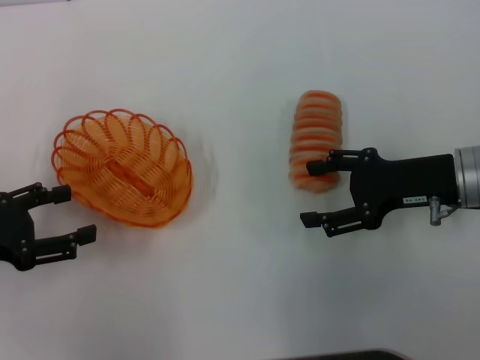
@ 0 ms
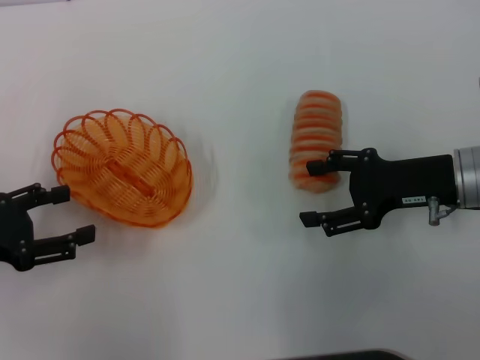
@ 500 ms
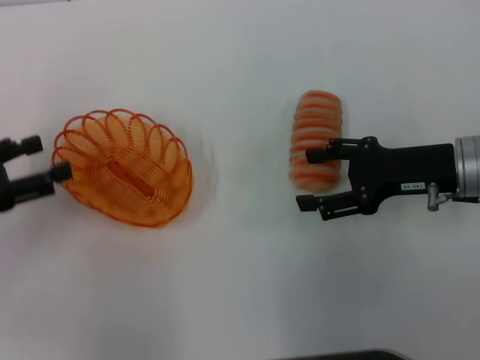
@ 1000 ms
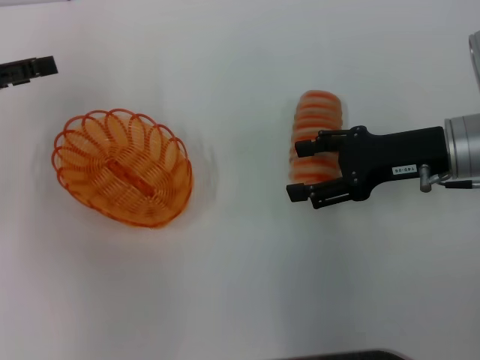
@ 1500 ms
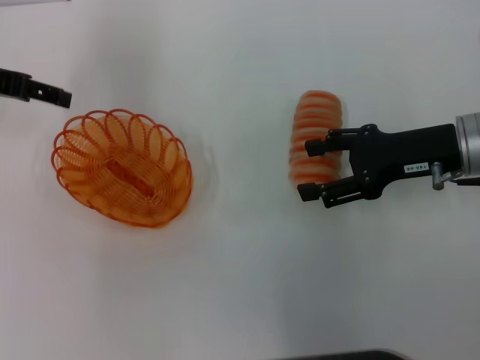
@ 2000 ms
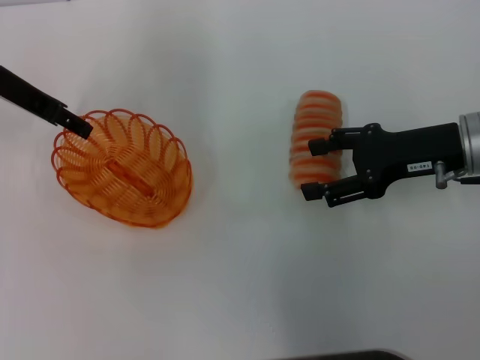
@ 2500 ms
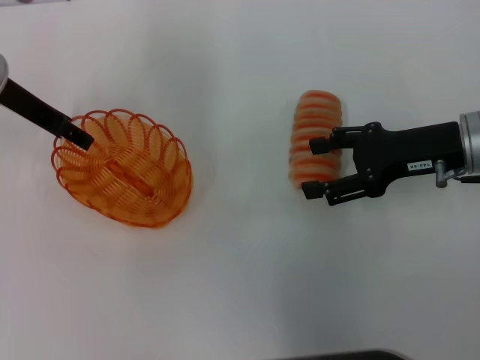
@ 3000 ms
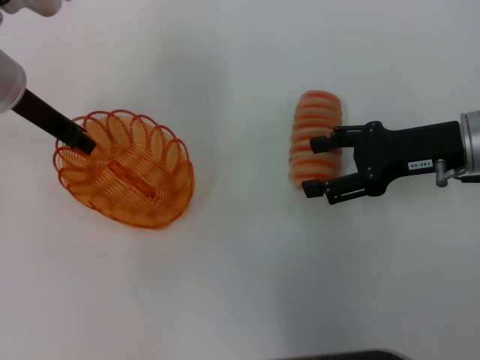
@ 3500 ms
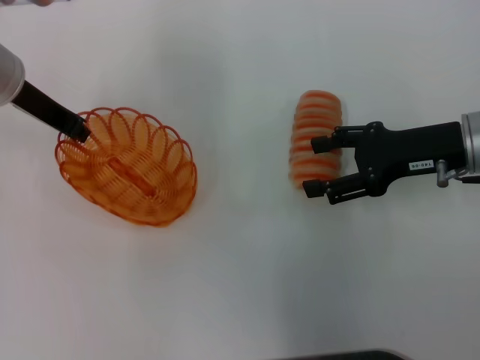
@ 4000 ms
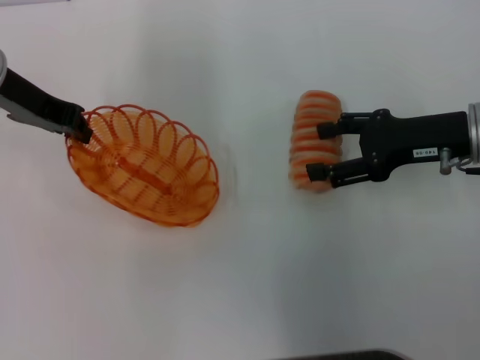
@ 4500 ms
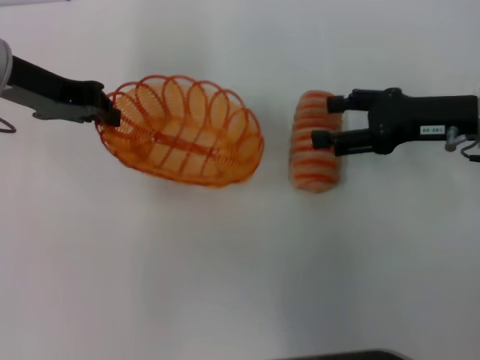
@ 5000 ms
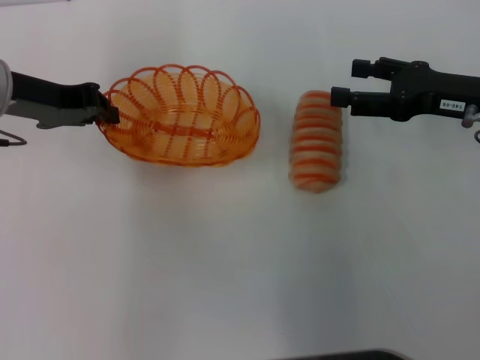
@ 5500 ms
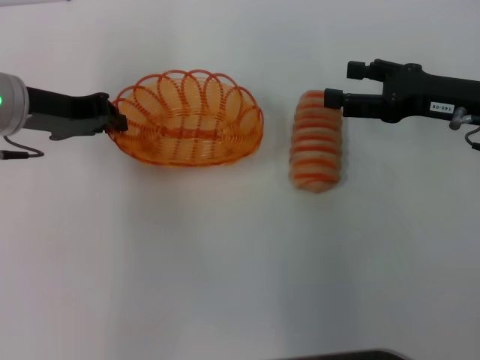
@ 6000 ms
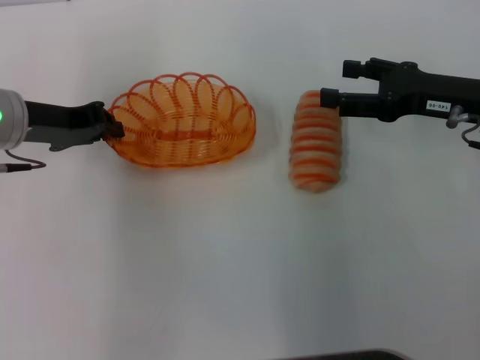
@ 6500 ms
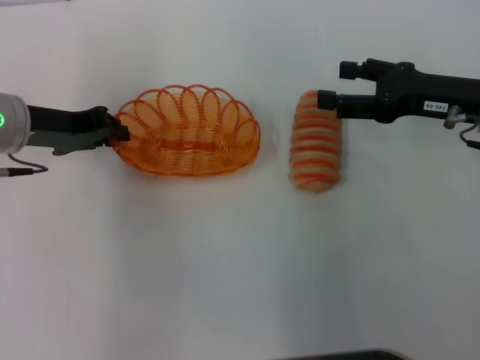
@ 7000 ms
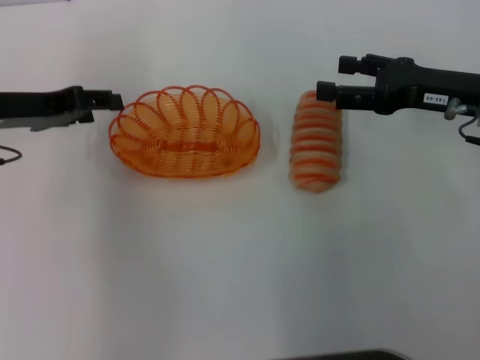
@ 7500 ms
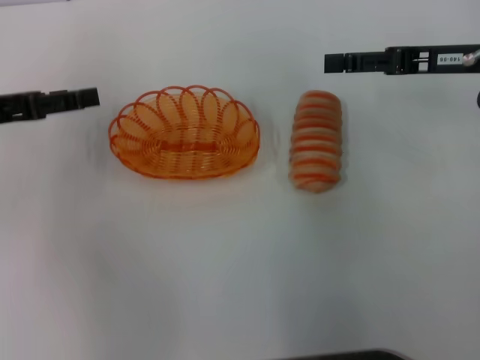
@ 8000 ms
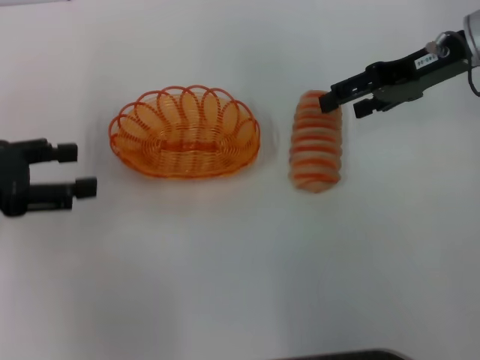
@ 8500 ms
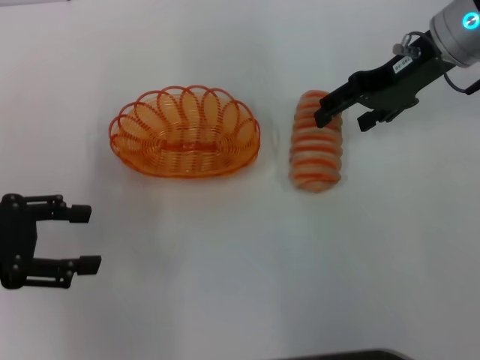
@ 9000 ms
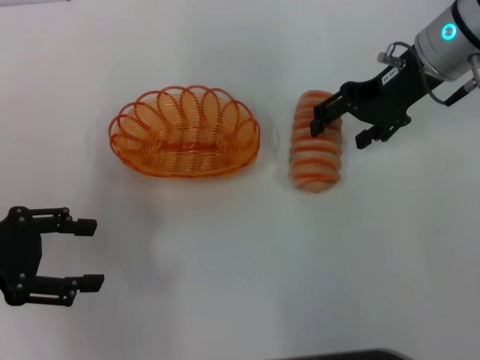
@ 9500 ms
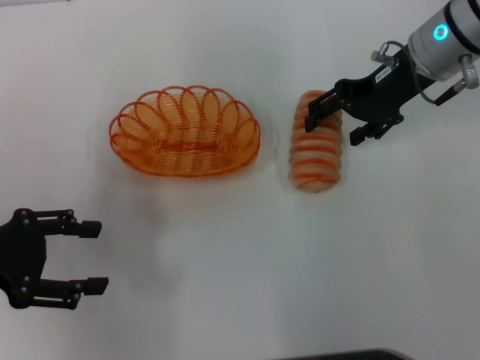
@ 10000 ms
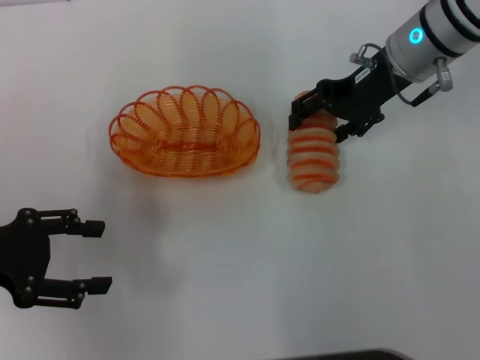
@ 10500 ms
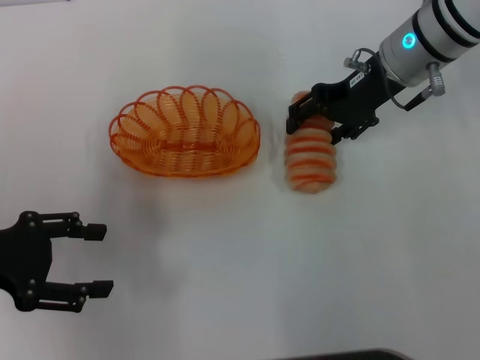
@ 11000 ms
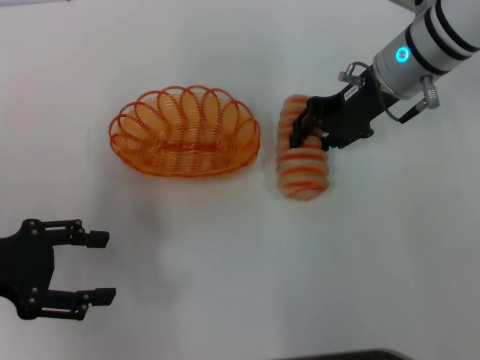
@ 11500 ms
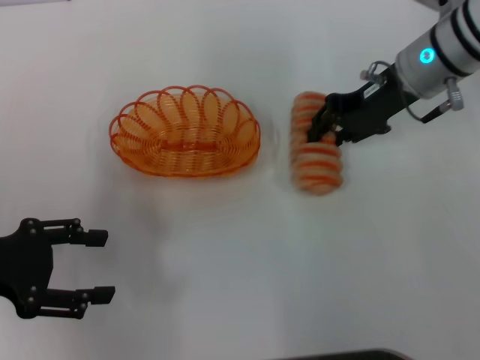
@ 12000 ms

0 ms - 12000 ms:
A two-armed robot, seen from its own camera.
Step, 0 ms - 4000 ms: Pick up the basket with the left gripper.
Step, 4500 ms - 7000 ms: Place the basket in the center of view with the left gripper.
Step, 7500 ms - 12000 ms: Pick up the long bread with the right gripper.
0 ms - 2000 ms: The left gripper goes some 20 cm forward and upward.
2000 ms - 4000 ms: The left gripper shifts some 5 cm to the right, and closes up.
6000 ms - 8000 ms: The left gripper moves to the left, roughly 5 cm, and opens up, while the right gripper shifts by roughly 5 cm.
8000 ms - 10000 ms: The right gripper travels to the left and forward by approximately 10 cm; the left gripper heads backward, covering about 10 cm.
10000 ms - 12000 ms: The right gripper closes up.

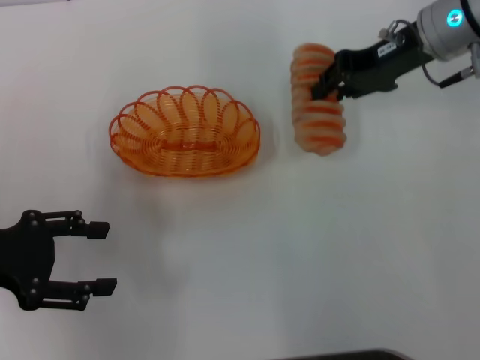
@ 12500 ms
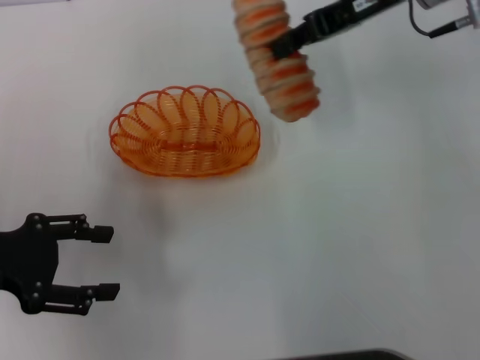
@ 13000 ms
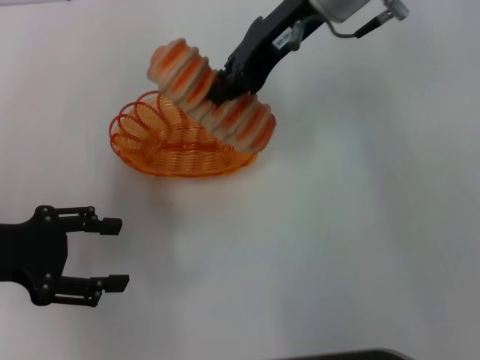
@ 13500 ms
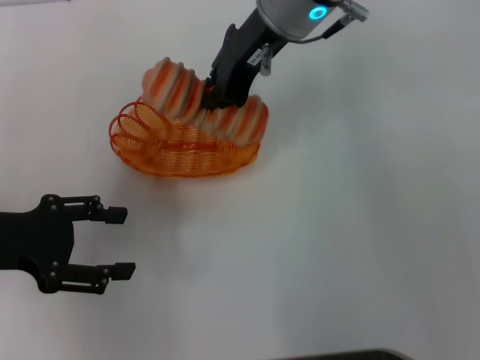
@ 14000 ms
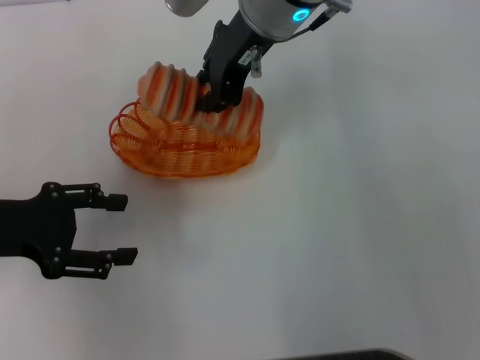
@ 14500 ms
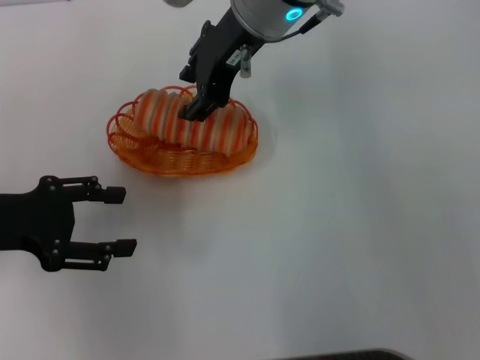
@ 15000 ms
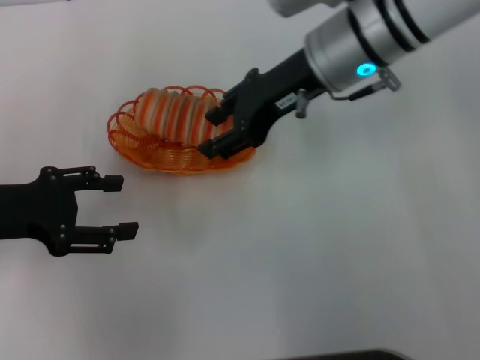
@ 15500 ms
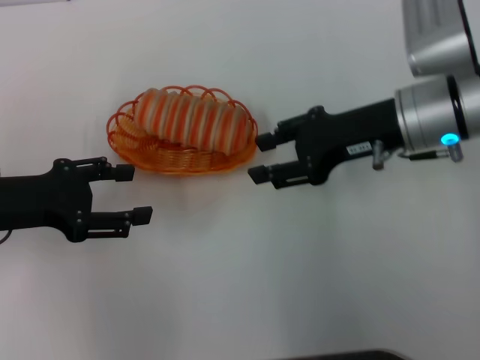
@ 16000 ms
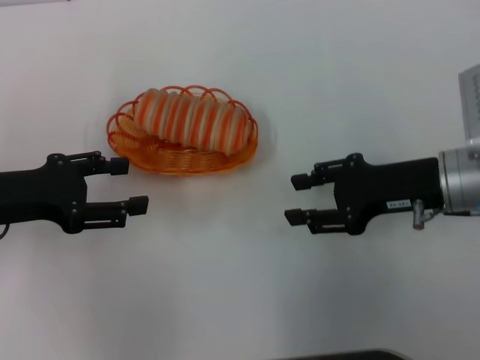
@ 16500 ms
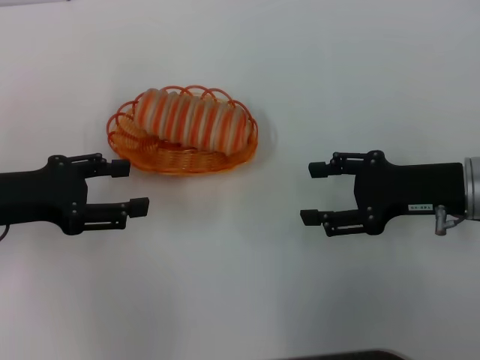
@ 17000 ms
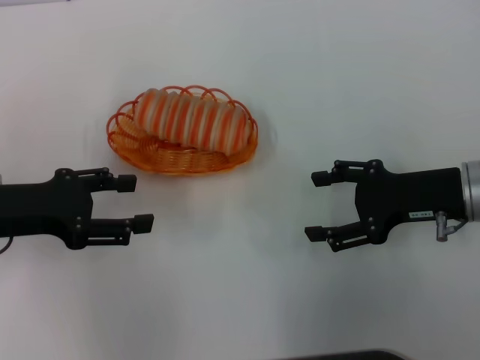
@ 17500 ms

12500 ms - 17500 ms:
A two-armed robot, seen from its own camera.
Step, 12500 ms - 14500 ms: Place the long bread into the basket with the right gripper.
12500 ms - 15000 ms: The right gripper heads to the left, covering about 20 cm.
15000 ms - 17500 ms: The right gripper is displaced to the right, downward and backward by roughly 30 cm, and opens its fingers.

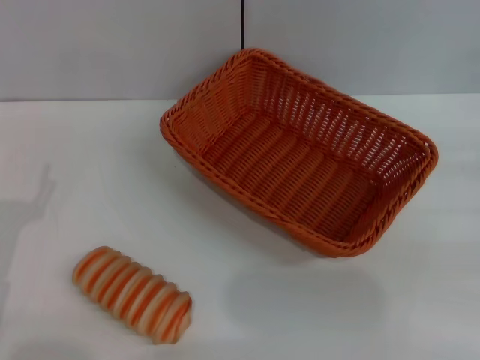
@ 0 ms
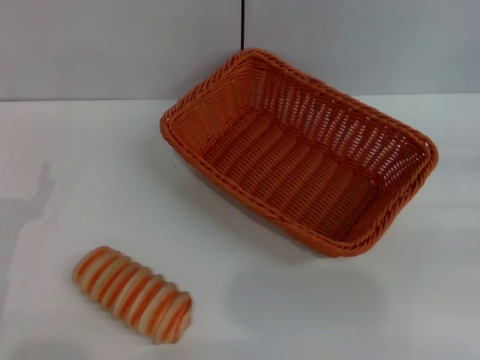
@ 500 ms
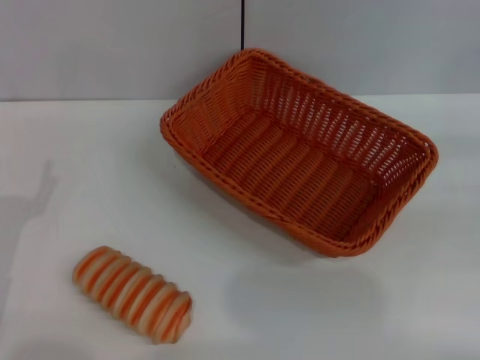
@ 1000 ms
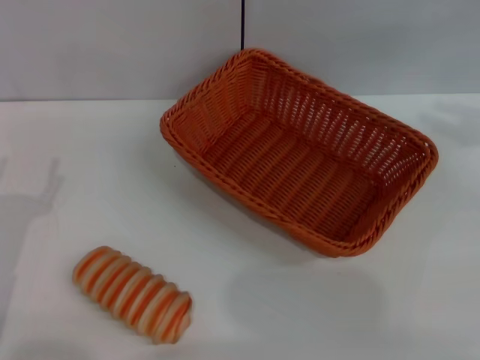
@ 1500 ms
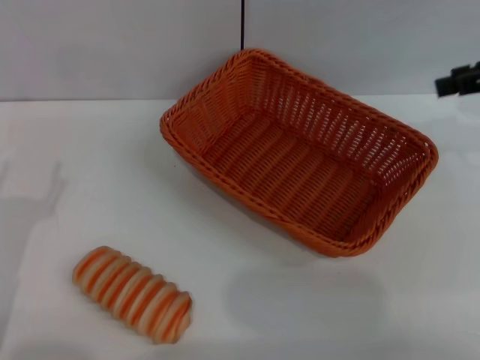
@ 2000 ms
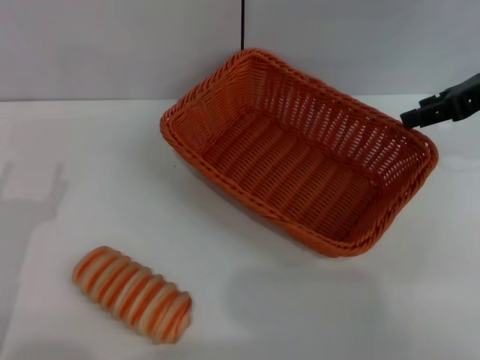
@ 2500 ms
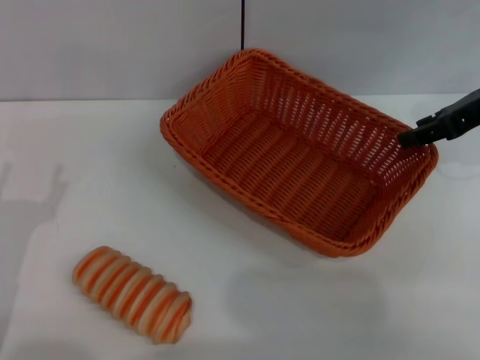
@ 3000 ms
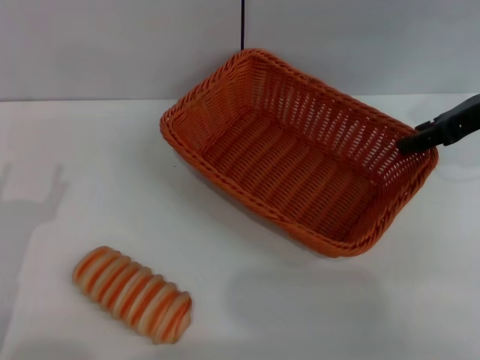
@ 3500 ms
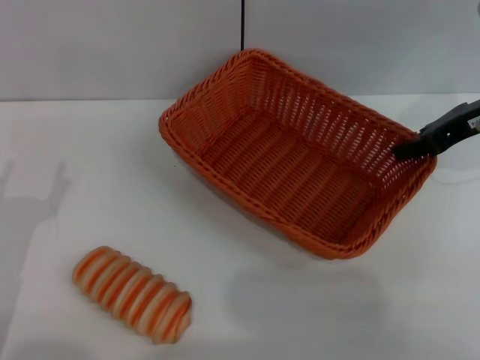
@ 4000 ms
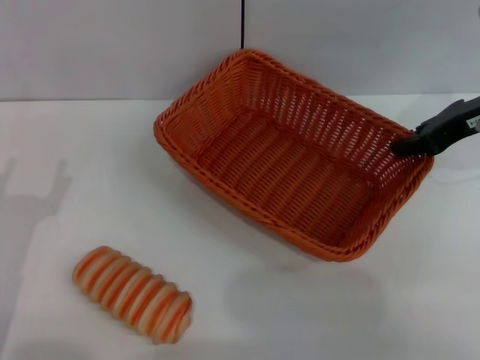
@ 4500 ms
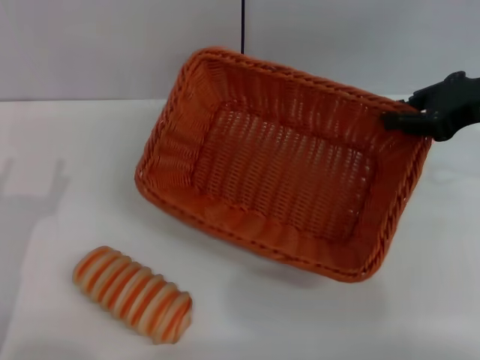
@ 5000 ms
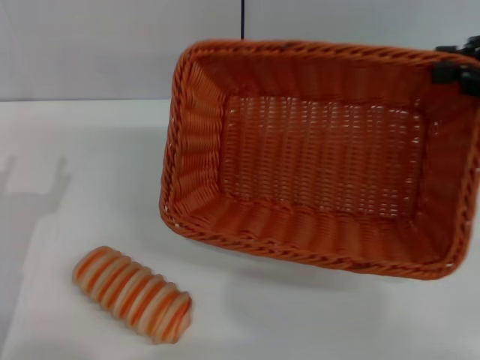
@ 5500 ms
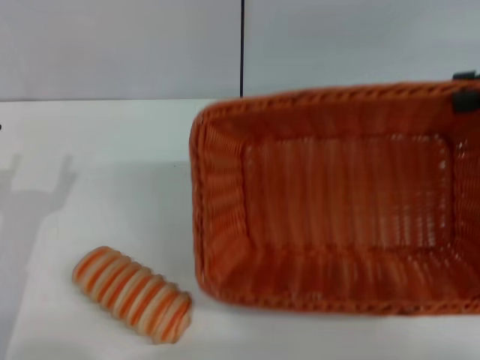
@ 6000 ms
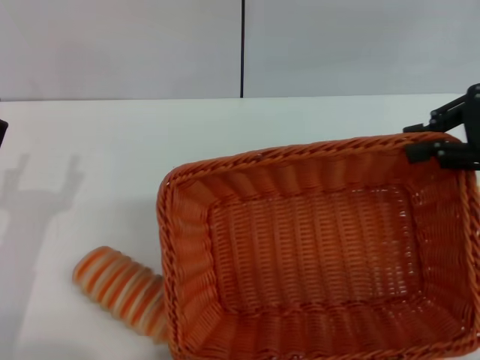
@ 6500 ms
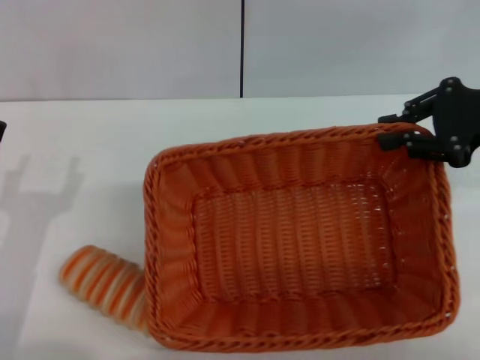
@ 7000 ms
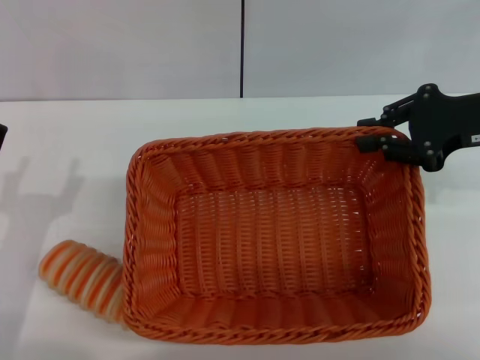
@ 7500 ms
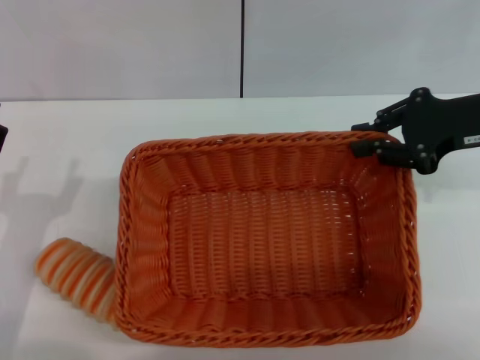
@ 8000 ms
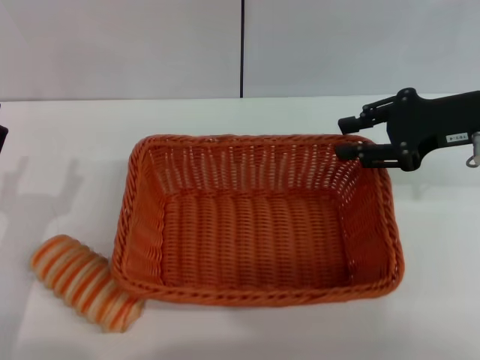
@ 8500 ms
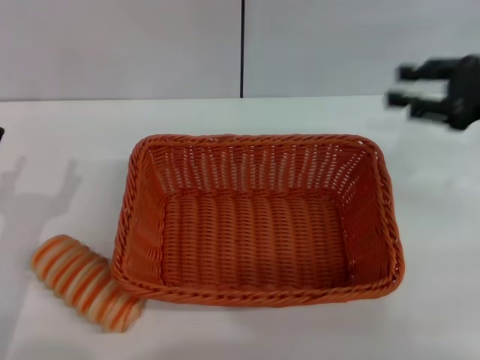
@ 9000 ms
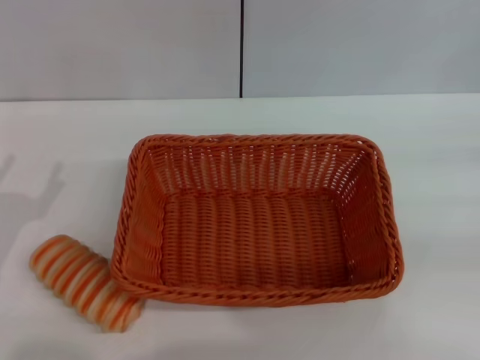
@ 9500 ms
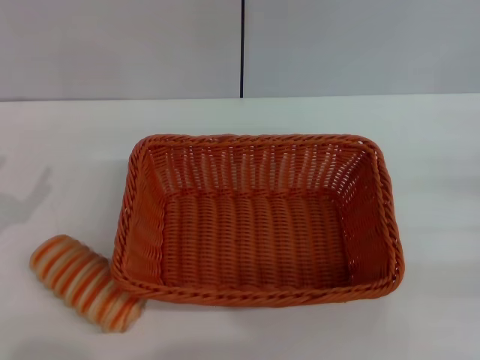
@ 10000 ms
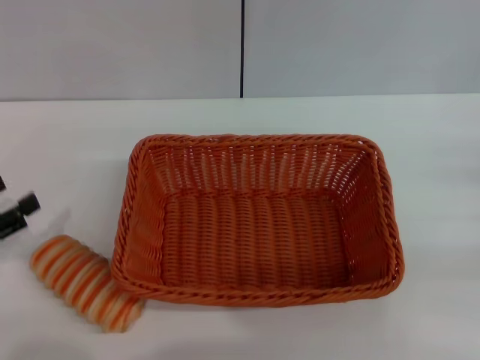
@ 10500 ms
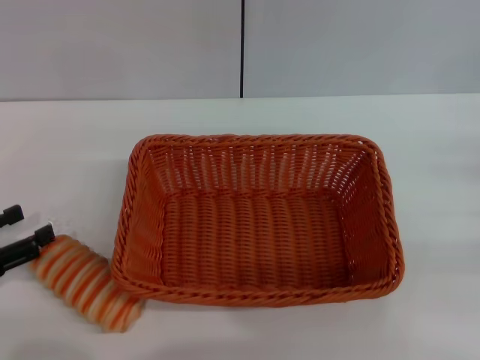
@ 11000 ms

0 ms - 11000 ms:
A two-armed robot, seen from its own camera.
Step, 0 ms - 5000 ms: Pick up the light basket with the right gripper.
Step, 5500 ms - 8500 ms: Place the light basket in the center of view with the right gripper.
0 ms - 2000 ms: The right gripper heads upward, forward and to the left, covering roughly 20 cm.
2000 ms - 3500 ms: The right gripper goes roughly 5 cm downward.
3500 ms - 5500 ms: The right gripper moves backward, roughly 5 cm, and closes.
5500 ms - 7500 ms: The right gripper travels downward by some 5 cm.
7500 ms - 9000 ms: The right gripper opens its fingers.
9000 ms - 11000 ms: The right gripper travels downward, backward and to the right by approximately 15 cm. Meanwhile the left gripper travels to the left by roughly 10 cm.
